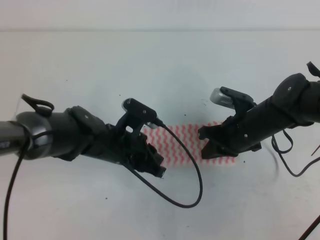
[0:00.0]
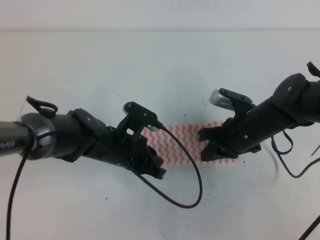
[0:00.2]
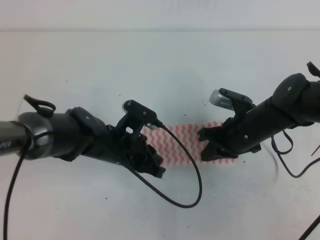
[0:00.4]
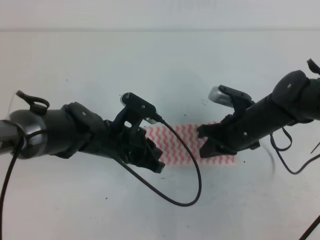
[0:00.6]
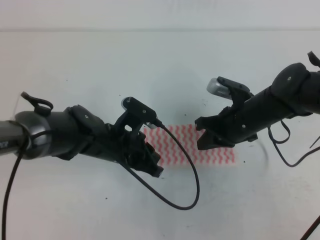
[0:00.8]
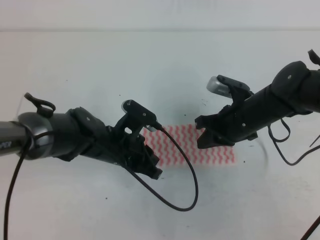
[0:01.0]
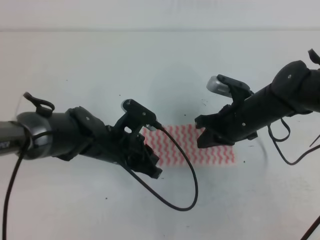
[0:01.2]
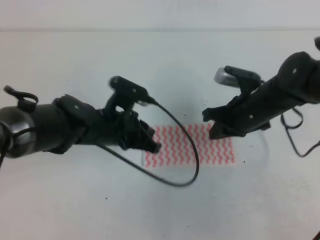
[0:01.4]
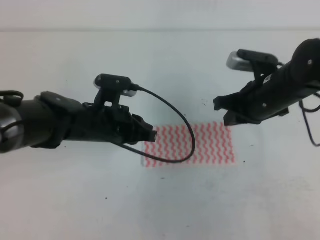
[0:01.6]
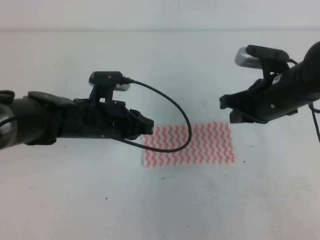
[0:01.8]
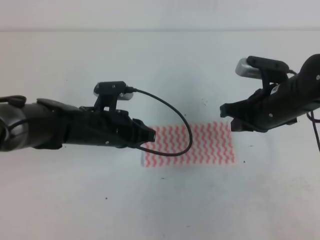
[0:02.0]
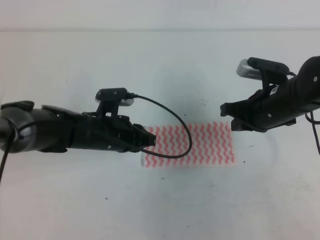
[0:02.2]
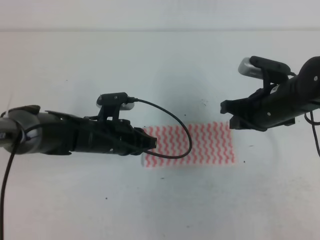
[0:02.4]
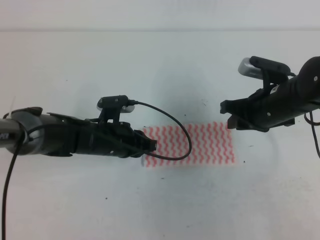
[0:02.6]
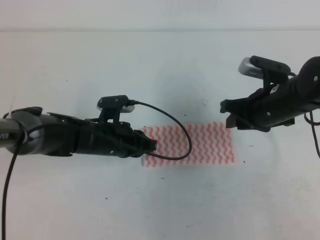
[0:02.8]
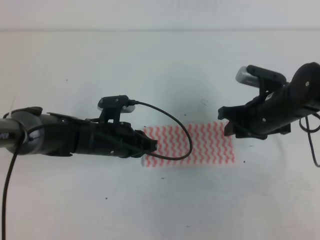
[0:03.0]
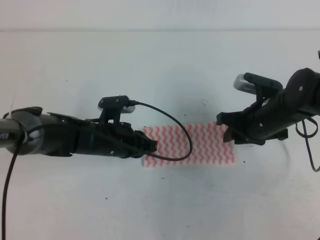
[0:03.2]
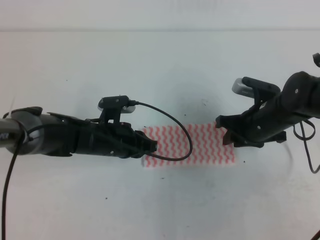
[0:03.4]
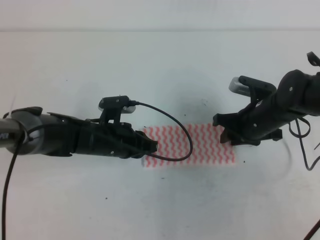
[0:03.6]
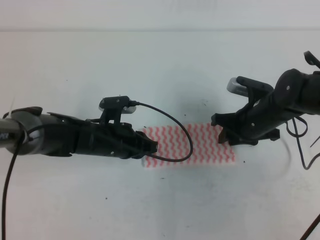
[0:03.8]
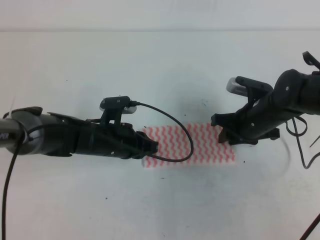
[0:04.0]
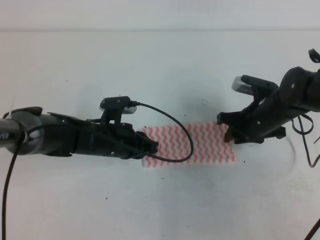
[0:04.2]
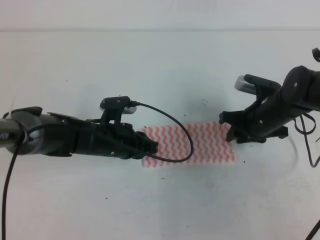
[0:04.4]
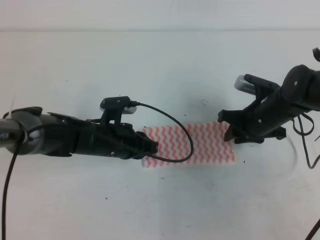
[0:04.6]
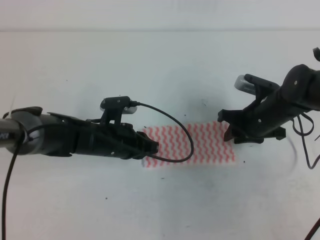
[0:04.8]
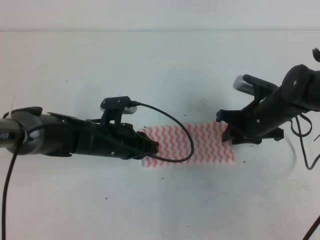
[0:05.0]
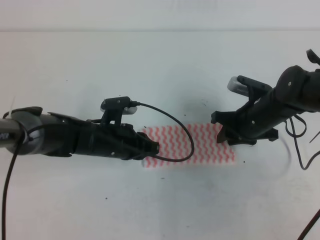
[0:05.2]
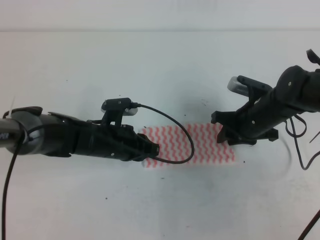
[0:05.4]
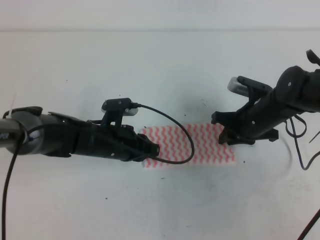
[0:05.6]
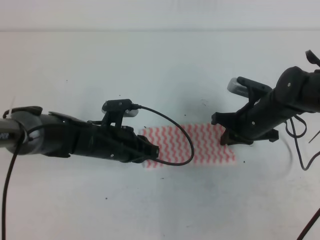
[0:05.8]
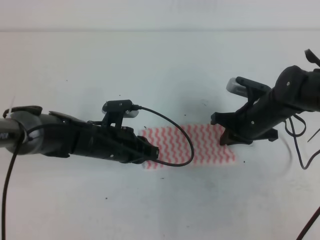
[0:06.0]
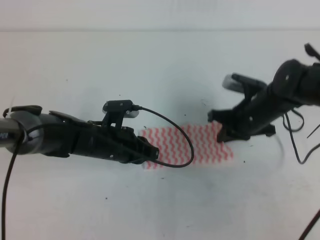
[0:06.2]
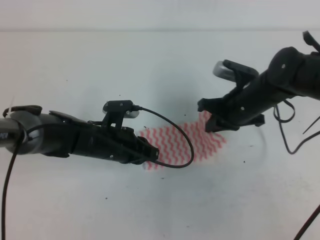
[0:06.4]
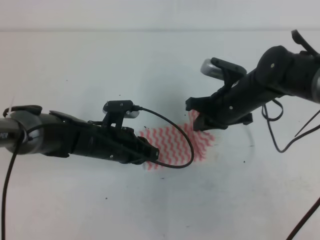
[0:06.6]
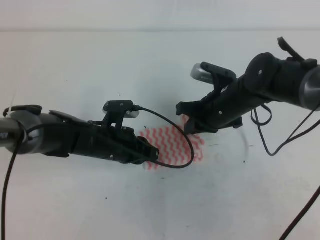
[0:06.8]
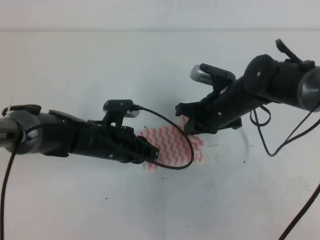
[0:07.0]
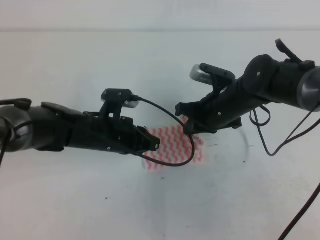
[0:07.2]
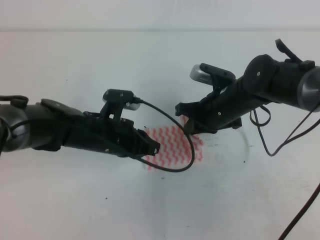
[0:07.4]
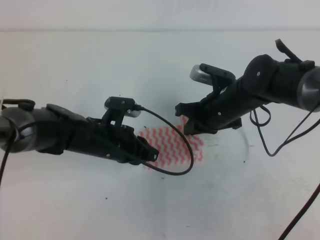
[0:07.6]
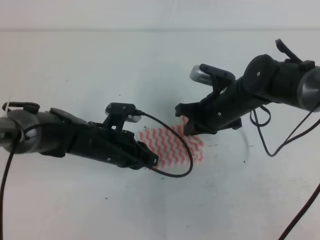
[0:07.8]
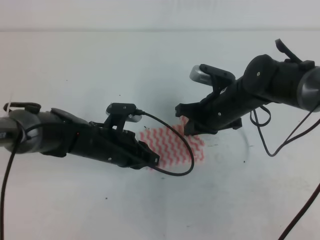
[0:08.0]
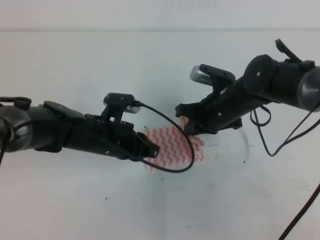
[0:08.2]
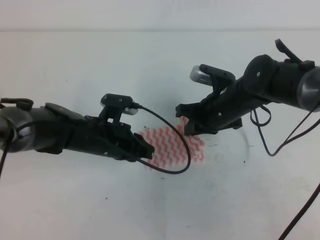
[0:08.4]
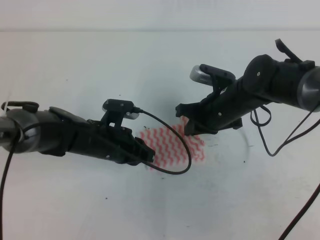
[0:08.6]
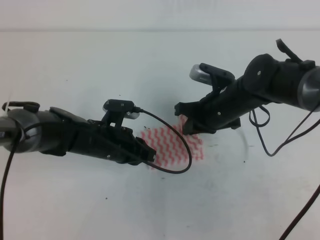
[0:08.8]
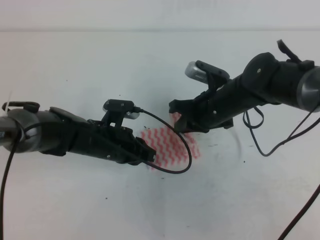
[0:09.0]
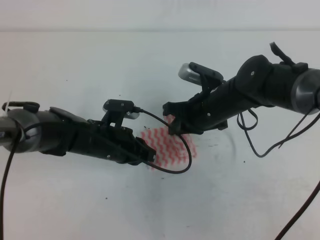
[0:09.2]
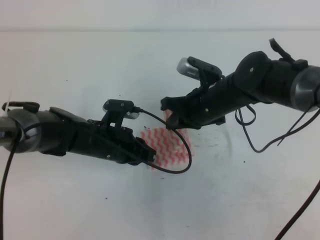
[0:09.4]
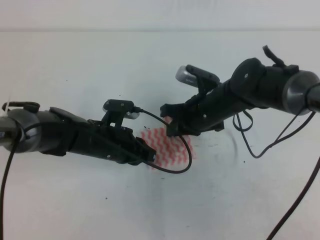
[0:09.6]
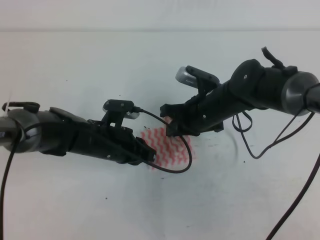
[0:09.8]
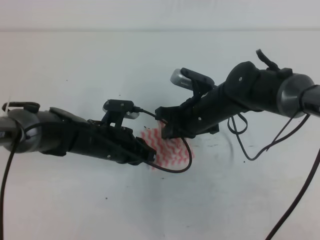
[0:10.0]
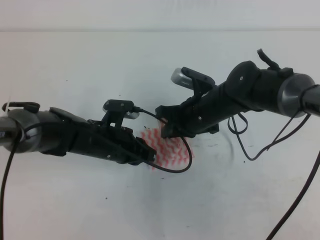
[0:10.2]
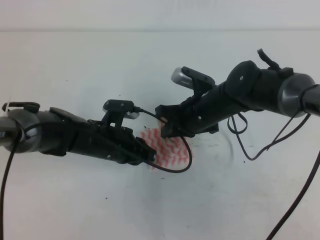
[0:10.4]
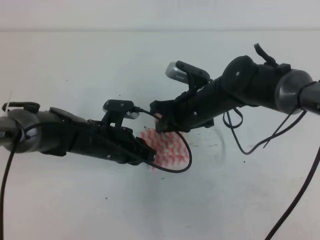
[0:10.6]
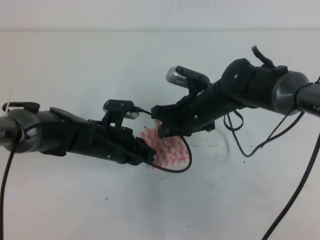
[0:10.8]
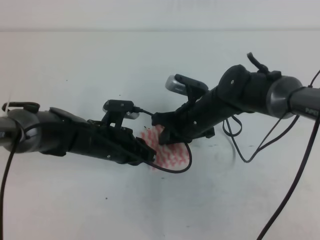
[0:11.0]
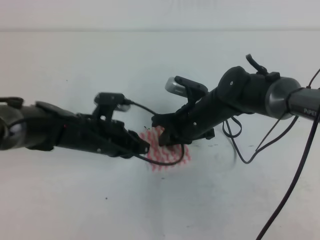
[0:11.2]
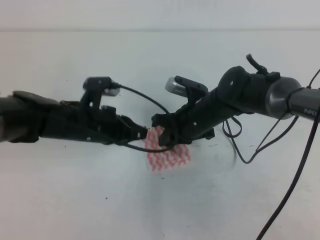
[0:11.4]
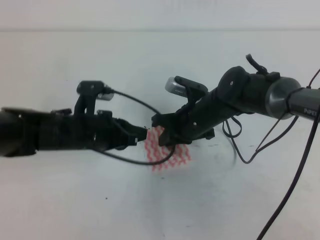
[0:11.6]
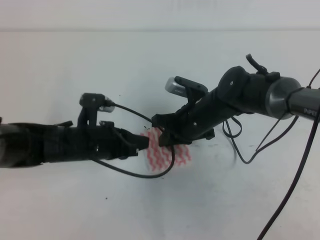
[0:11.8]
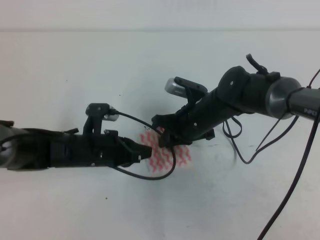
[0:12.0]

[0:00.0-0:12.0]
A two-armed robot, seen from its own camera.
0:00.0 to 0:01.6: The right gripper travels upward by some 5 cm.
0:01.6 to 0:03.0: The right gripper opens up, while the left gripper travels downward by approximately 5 cm.
0:03.0 to 0:04.4: The right gripper ends up about 5 cm from where it was.
0:04.4 to 0:06.0: The right gripper closes.
0:06.0 to 0:07.6: The right gripper travels to the left by roughly 5 cm.
0:07.6 to 0:12.0: There are only small adjustments of the grippers.

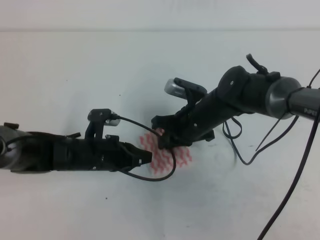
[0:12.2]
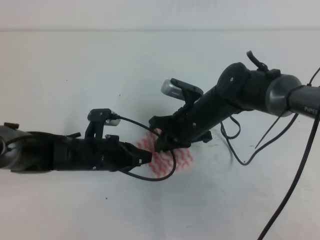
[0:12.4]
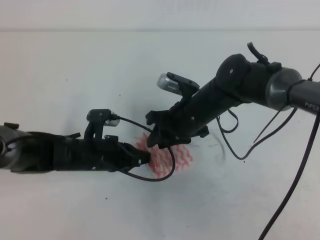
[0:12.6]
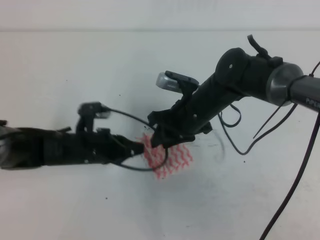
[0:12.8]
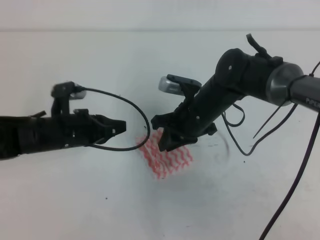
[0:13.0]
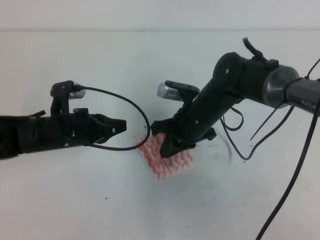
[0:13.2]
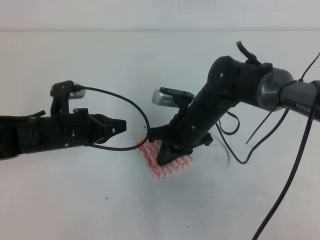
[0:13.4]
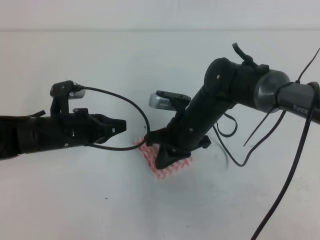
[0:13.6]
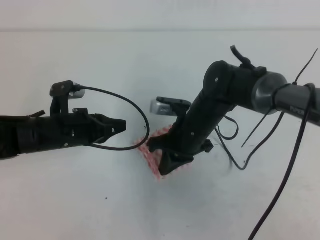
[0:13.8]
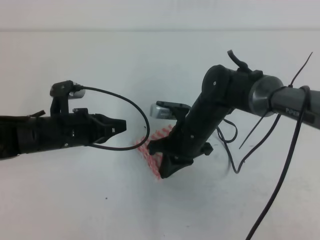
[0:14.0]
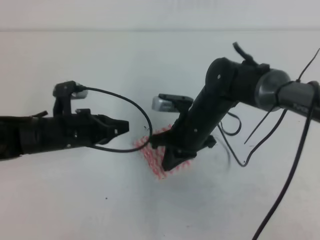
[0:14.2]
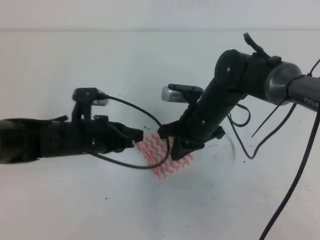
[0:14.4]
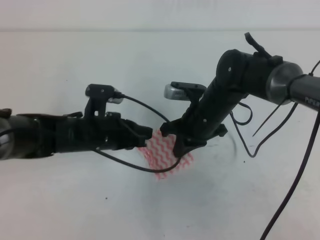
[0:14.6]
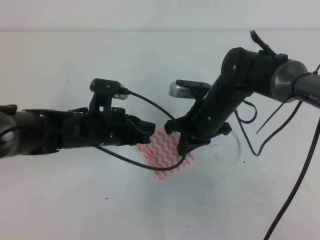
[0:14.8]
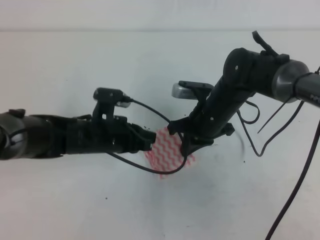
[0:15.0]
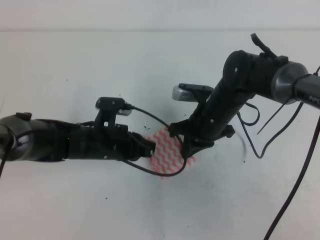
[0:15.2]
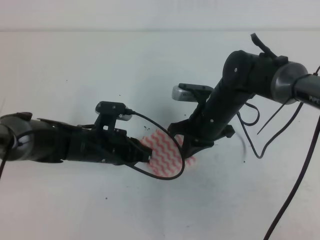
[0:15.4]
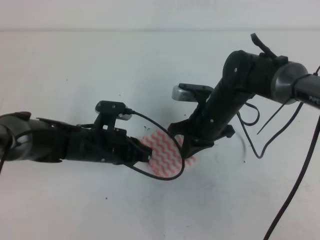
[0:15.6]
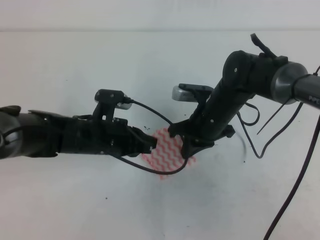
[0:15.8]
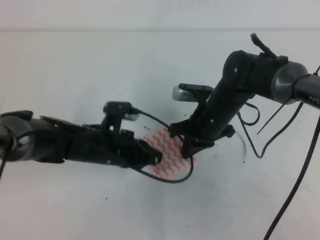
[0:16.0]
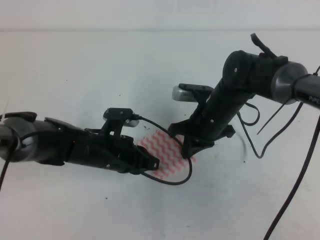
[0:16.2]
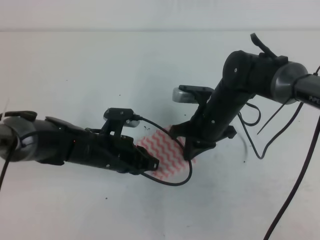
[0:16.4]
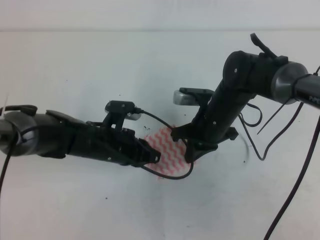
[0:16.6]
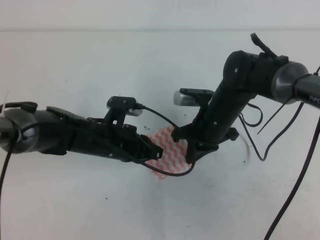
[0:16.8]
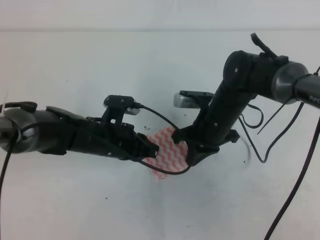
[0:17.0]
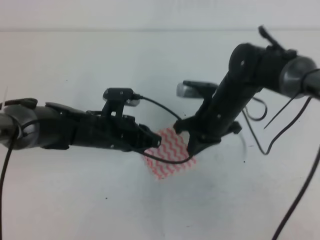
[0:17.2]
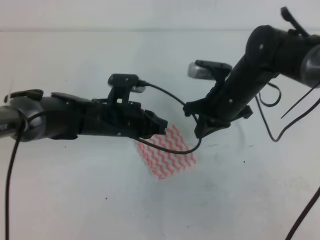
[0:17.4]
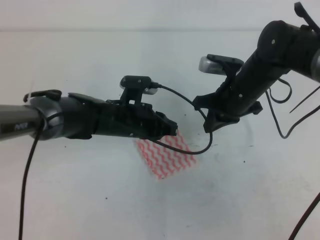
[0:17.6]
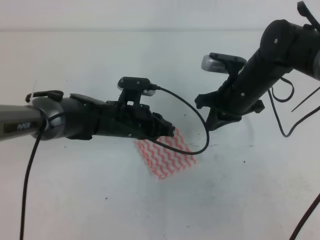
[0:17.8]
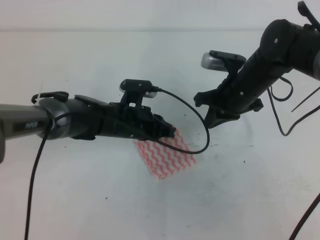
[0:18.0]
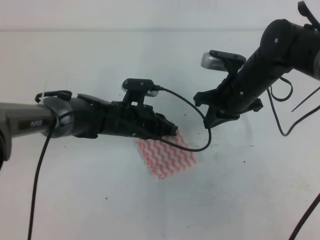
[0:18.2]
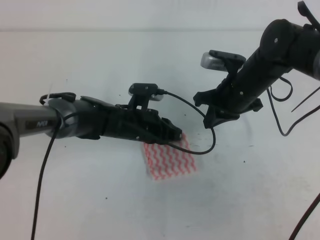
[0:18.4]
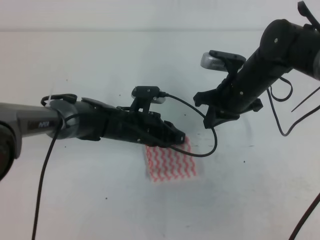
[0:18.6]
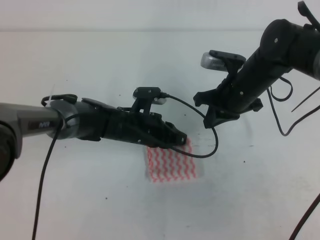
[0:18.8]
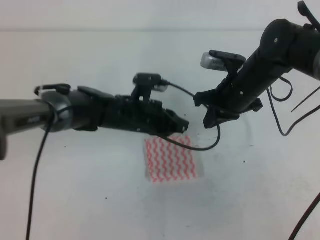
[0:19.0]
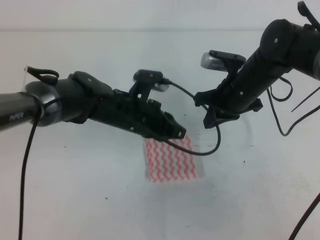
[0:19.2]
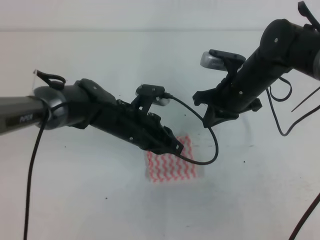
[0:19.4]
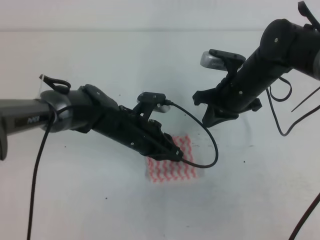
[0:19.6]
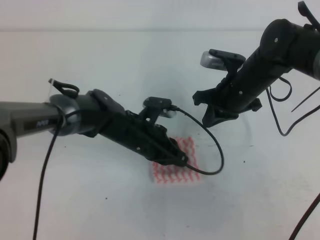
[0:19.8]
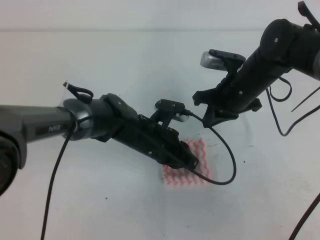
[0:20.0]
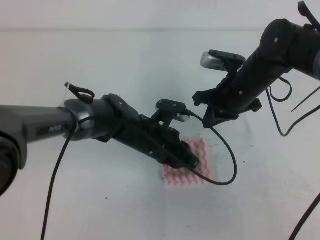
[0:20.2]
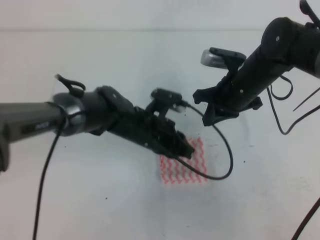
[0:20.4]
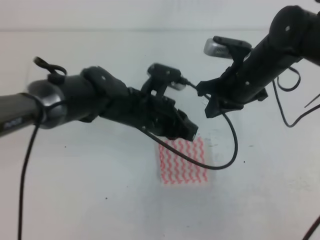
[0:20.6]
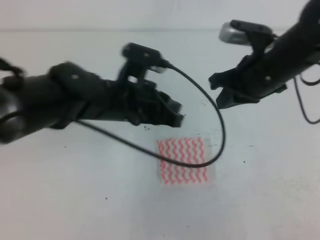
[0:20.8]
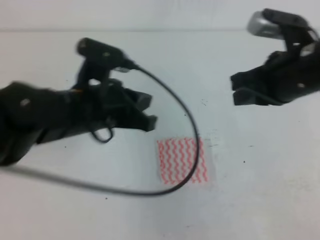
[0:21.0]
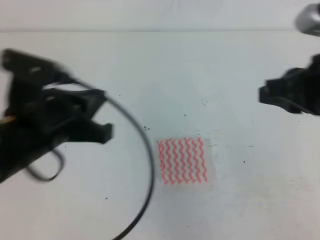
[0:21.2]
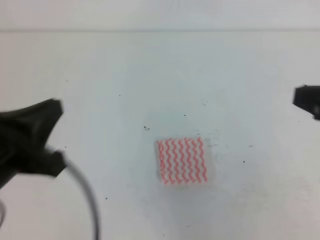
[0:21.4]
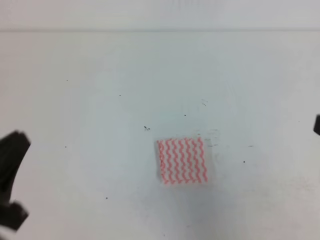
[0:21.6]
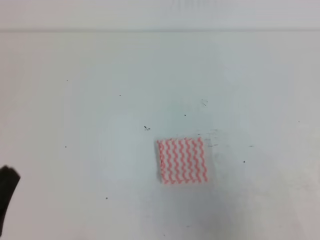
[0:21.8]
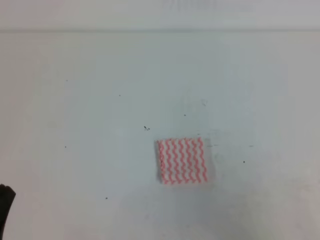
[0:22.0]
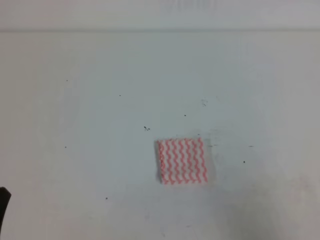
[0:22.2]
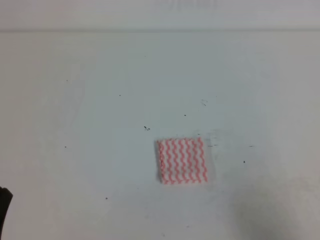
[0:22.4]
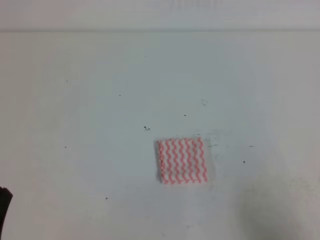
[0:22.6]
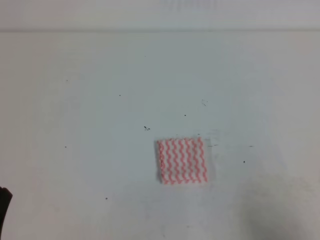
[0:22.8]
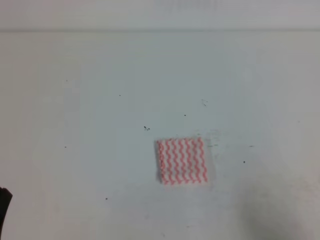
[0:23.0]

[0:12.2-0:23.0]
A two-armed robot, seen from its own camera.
0:12.2 to 0:13.8: The right gripper opens, then closes once more. The left gripper moves some 5 cm.
0:13.8 to 0:15.2: The left gripper heads to the right, covering about 5 cm.
0:15.2 to 0:16.8: The grippers stay close to where they were, moving slightly.
0:16.8 to 0:18.4: The left gripper shifts by approximately 5 cm; the right gripper moves approximately 5 cm.
0:18.4 to 0:20.0: The grippers move only a little.
0:20.0 to 0:21.4: The left gripper shifts about 30 cm backward, upward and to the left; the right gripper heads backward, upward and to the right, covering about 25 cm.
0:21.4 to 0:23.0: The right gripper shifts roughly 20 cm downward and backward. The left gripper goes about 15 cm downward, backward and to the left.
